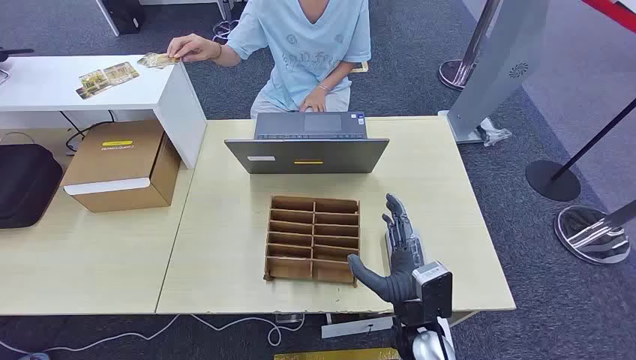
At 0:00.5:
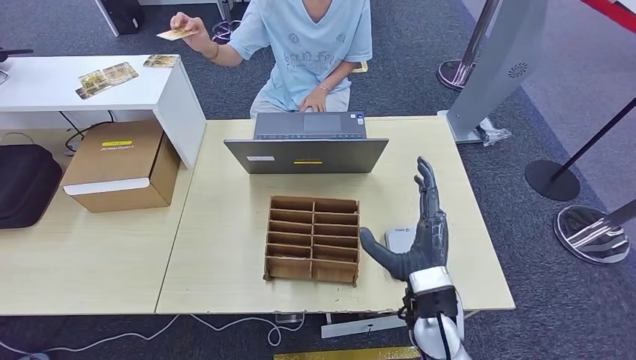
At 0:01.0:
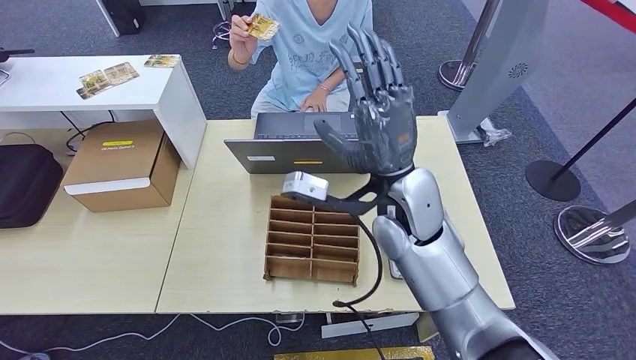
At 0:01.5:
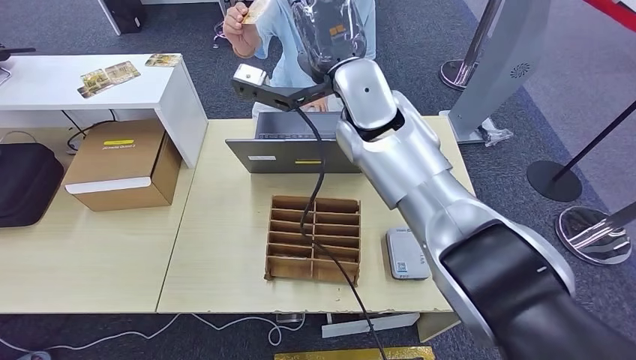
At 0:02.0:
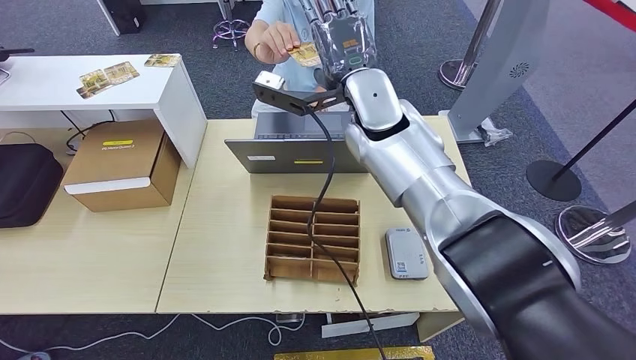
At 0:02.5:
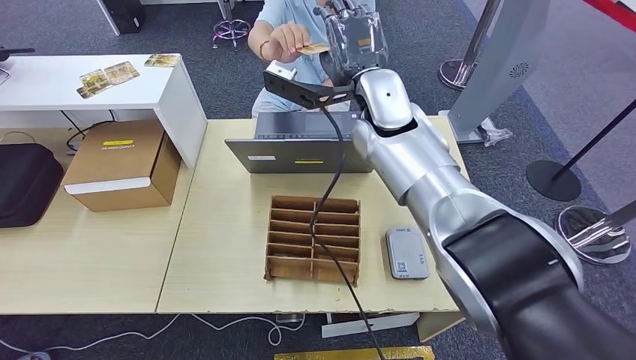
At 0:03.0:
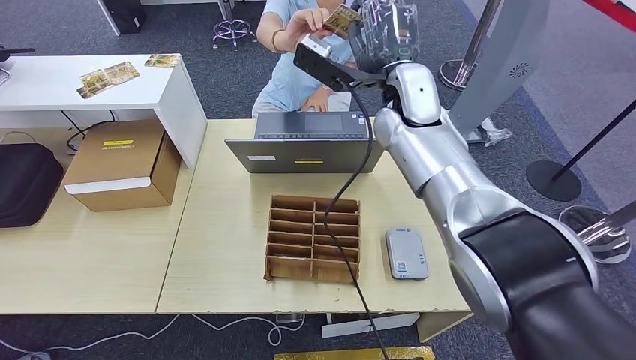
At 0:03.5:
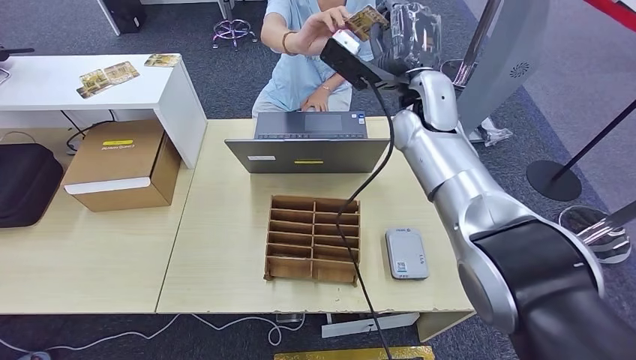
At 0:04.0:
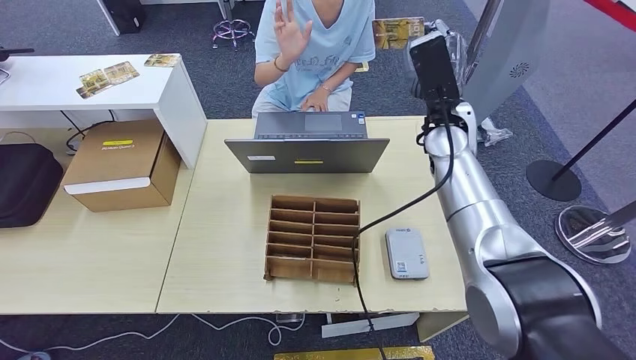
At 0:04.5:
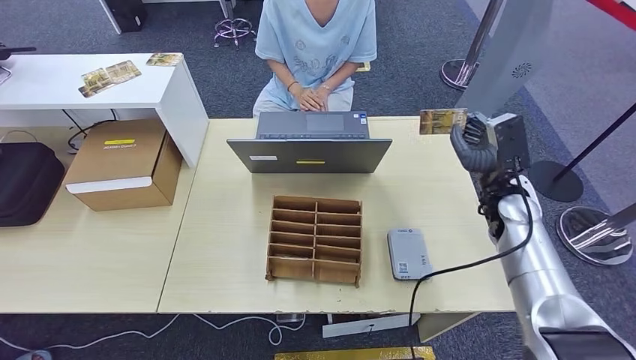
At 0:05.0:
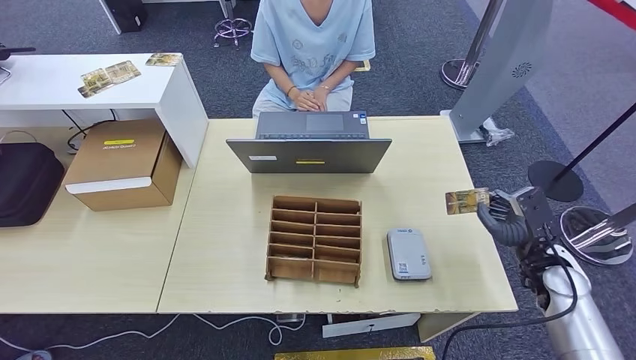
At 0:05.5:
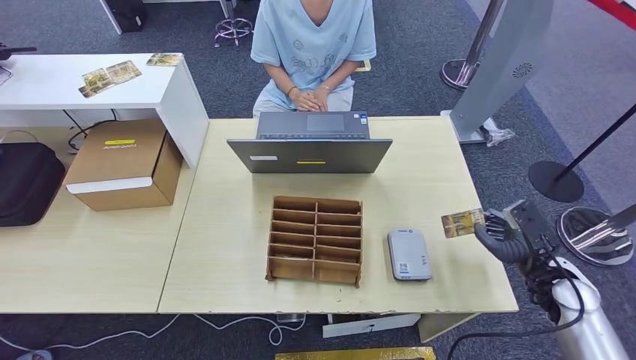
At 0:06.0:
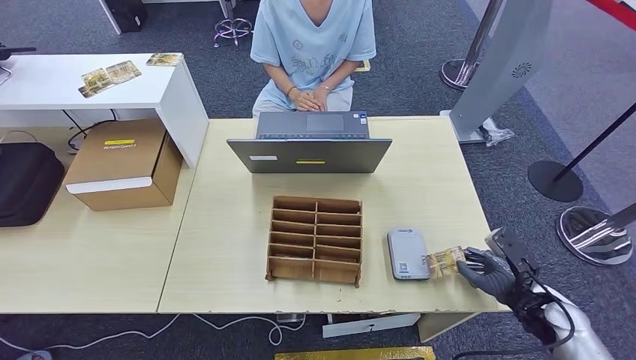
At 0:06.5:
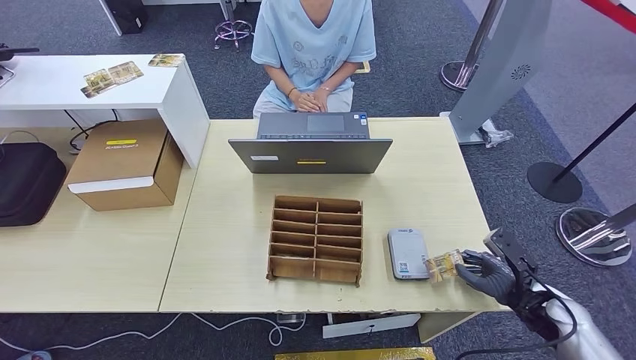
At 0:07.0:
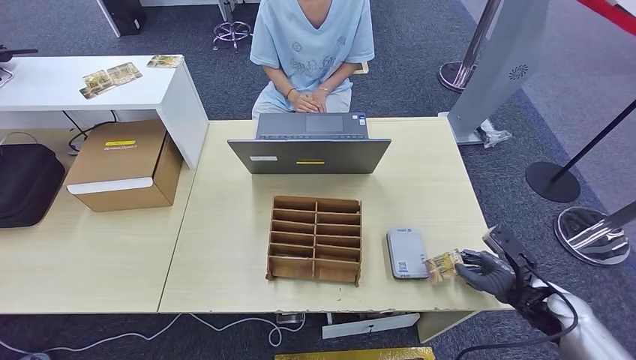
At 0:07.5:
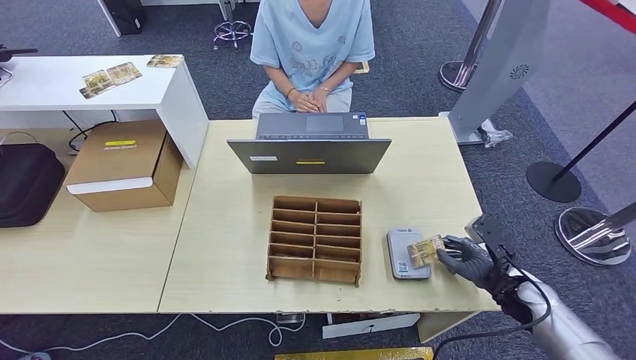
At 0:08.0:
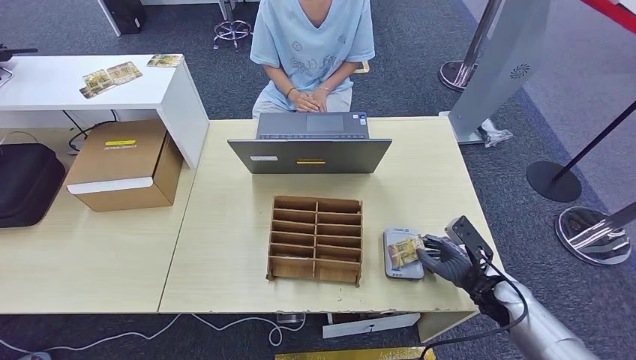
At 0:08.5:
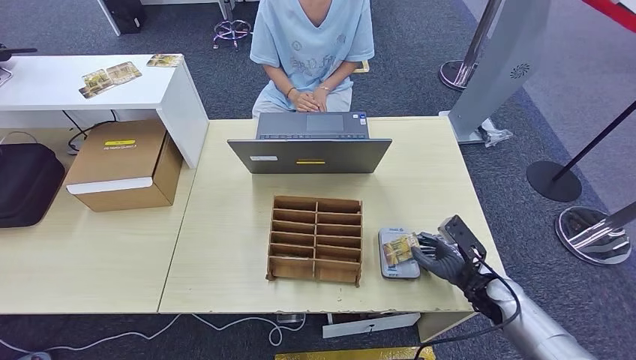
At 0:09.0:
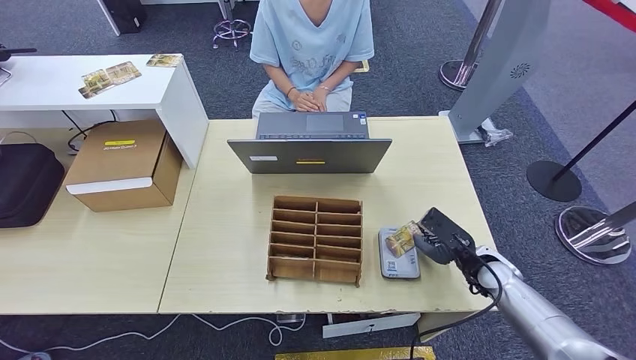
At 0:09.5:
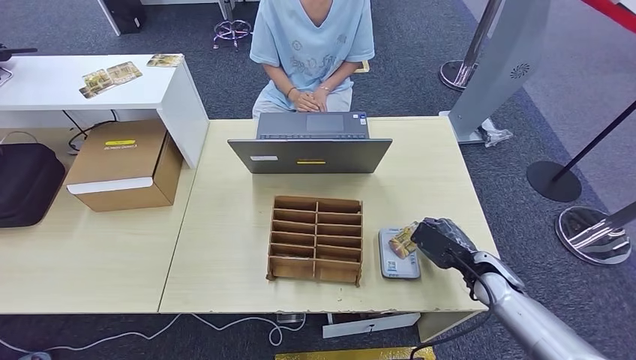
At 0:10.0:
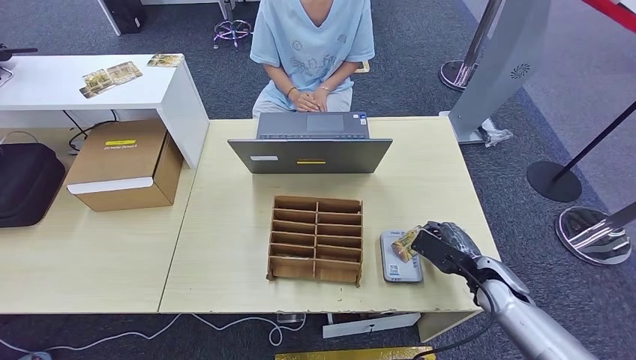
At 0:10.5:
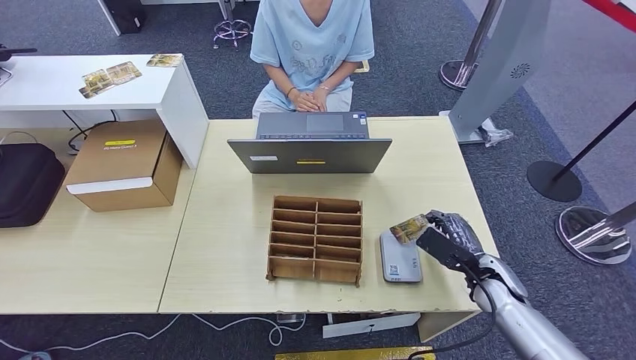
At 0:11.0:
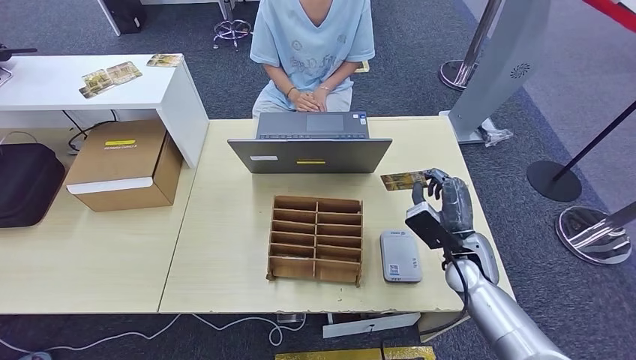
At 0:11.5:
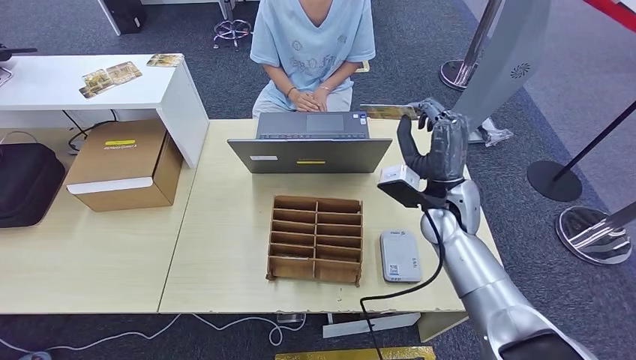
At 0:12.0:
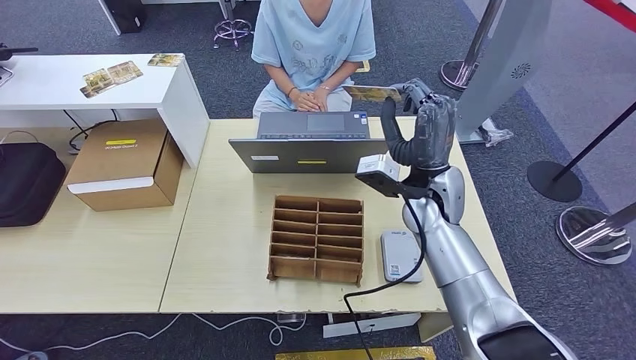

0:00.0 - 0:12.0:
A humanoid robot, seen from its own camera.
Step, 0:00.0 - 0:04.0: Take the ID card from the person's hand.
Step, 0:04.5 - 0:11.0: Place the ID card on the card reader.
0:02.0 - 0:04.0: The right hand moves to the right and downward, about 15 cm.
0:04.0 - 0:06.0: The right hand heads downward, backward and to the right, covering some 40 cm.
0:06.0 - 0:08.0: The right hand shifts approximately 5 cm to the left.
0:10.0 - 0:12.0: The right hand moves upward, to the left and forward, approximately 25 cm.

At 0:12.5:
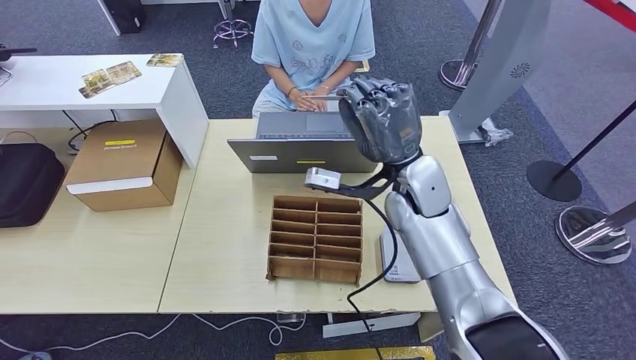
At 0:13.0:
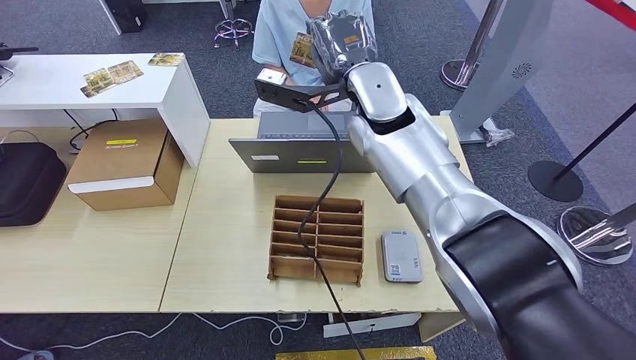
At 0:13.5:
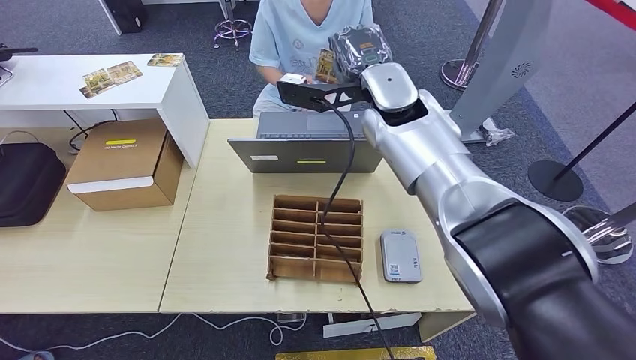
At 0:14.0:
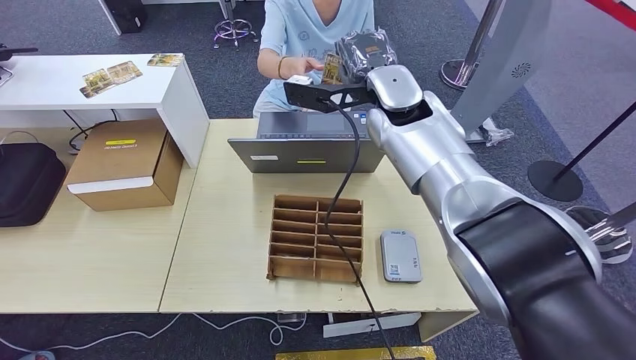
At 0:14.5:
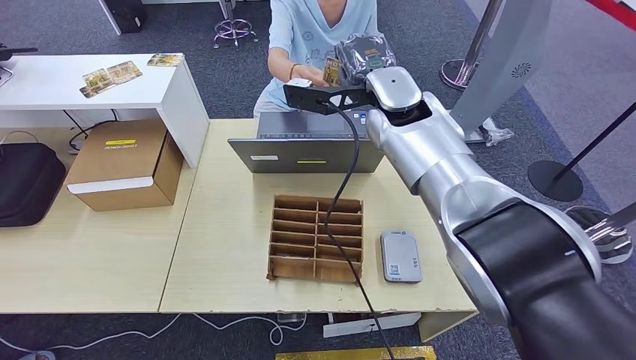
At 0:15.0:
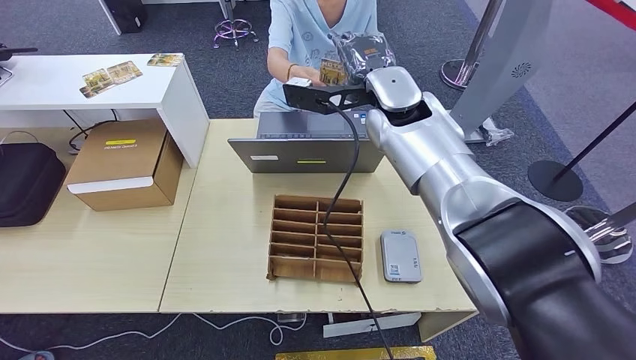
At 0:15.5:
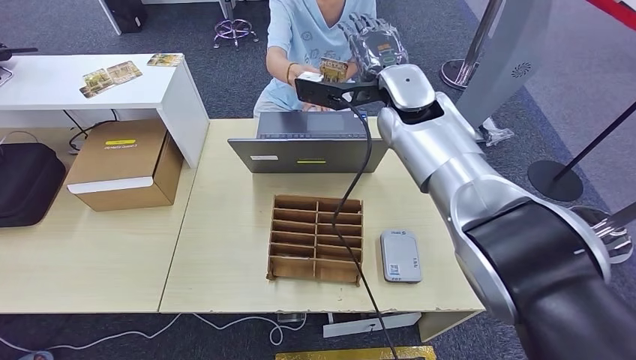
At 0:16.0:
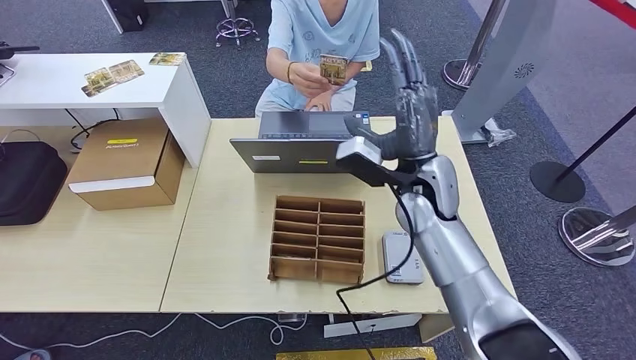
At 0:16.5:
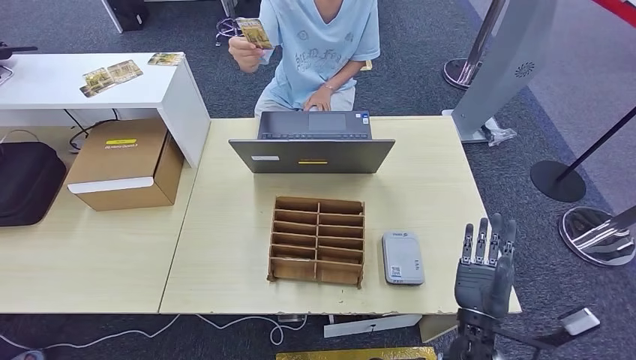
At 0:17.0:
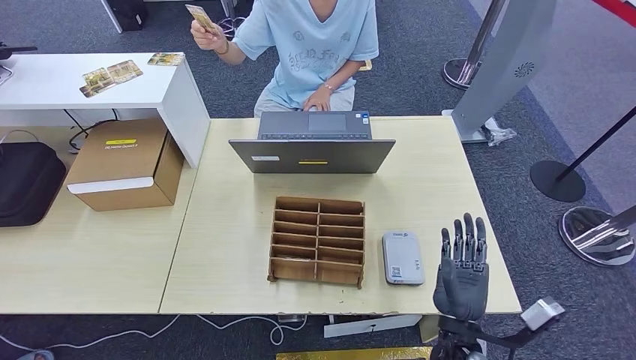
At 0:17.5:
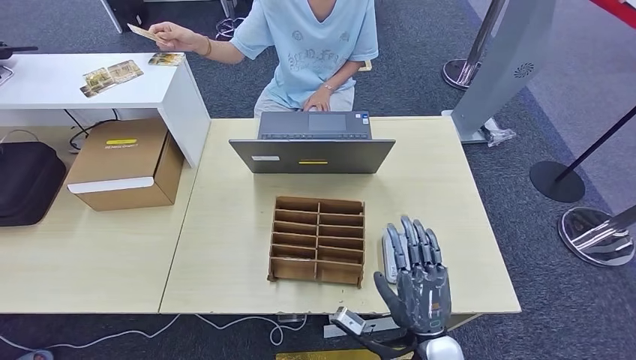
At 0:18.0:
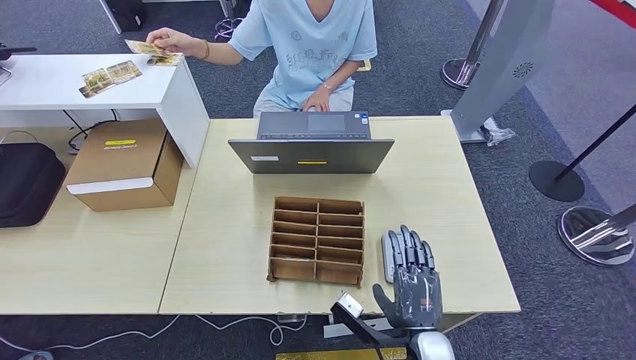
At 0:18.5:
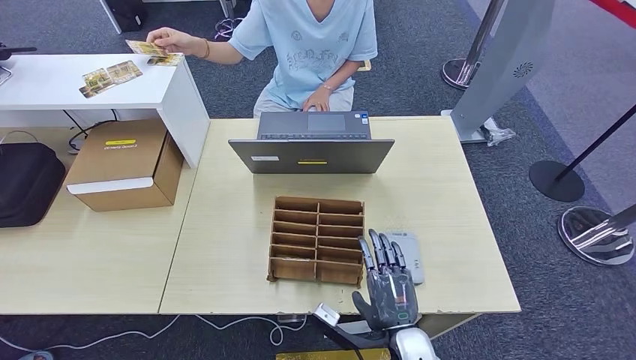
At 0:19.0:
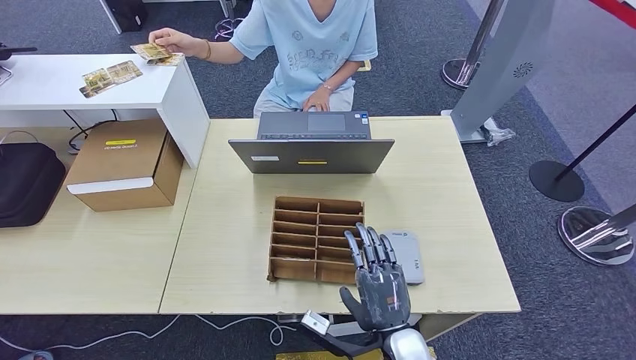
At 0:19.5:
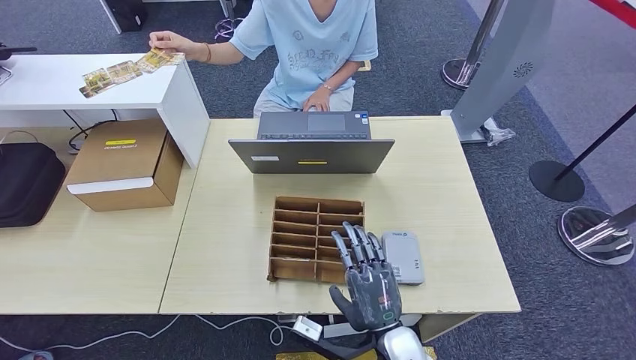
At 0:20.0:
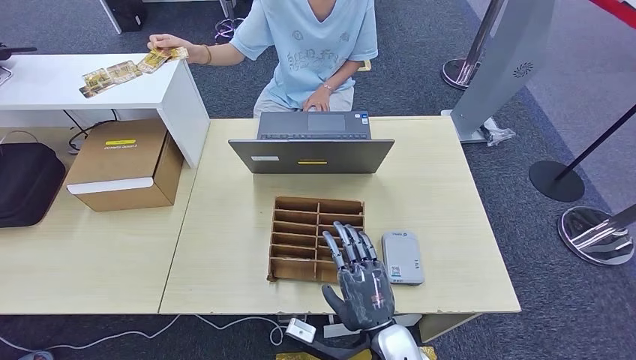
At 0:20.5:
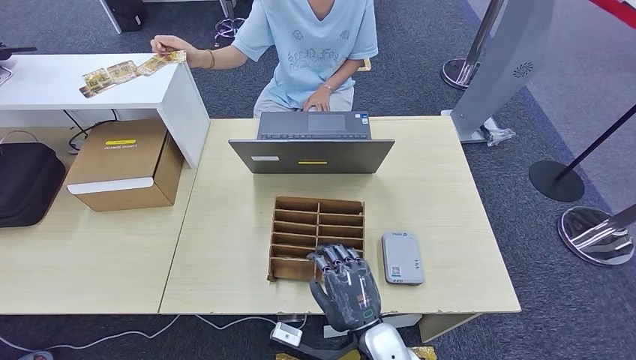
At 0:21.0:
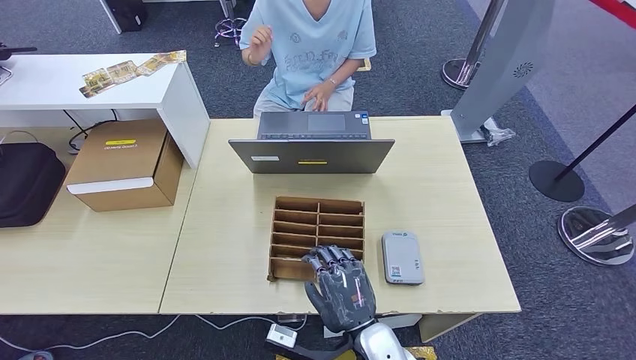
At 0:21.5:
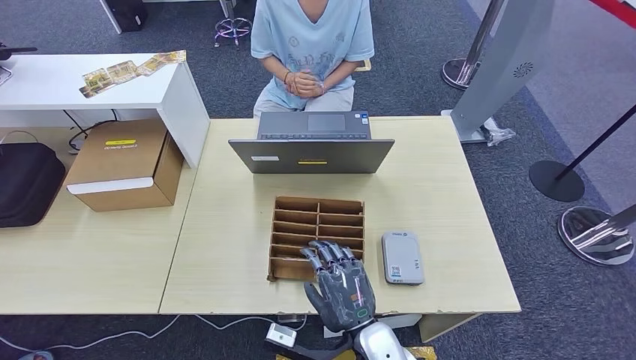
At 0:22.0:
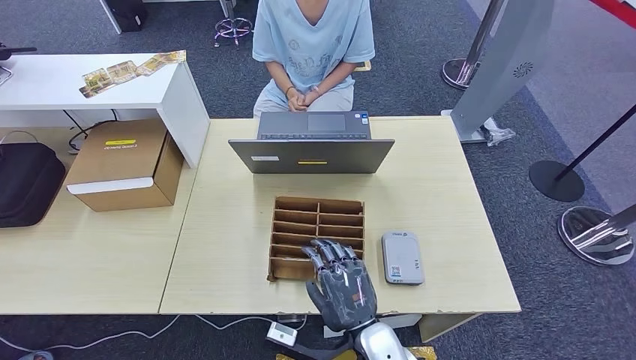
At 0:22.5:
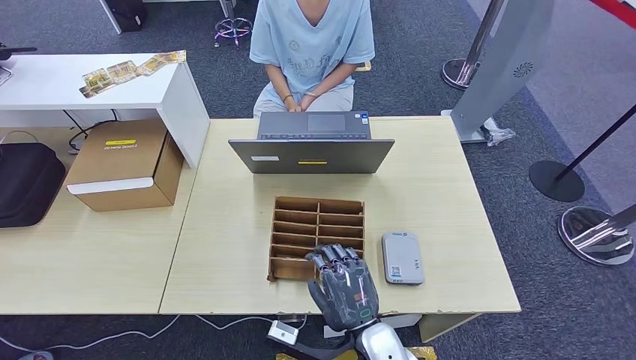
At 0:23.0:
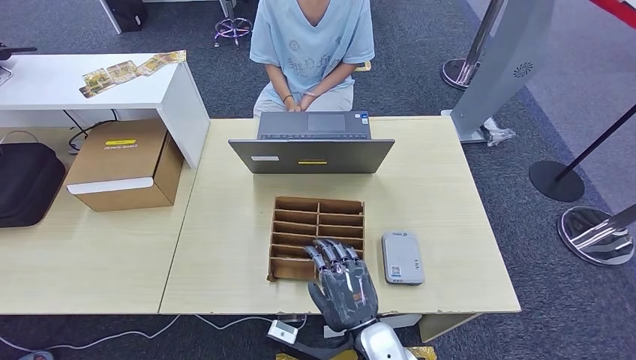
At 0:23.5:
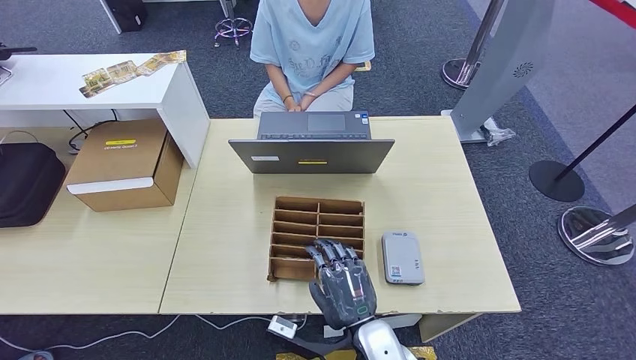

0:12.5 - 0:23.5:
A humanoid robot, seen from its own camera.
Step, 0:12.5 - 0:17.5: Hand the ID card to the person.
0:12.5 - 0:14.5: The right hand shifts about 10 cm upward and forward.
0:16.0 - 0:18.0: The right hand is displaced backward and downward by about 30 cm.
0:18.0 - 0:20.0: The right hand is displaced to the left by approximately 5 cm.
0:20.0 - 0:23.5: The hands make only small movements.
